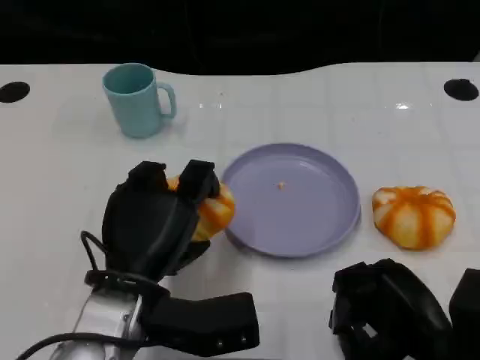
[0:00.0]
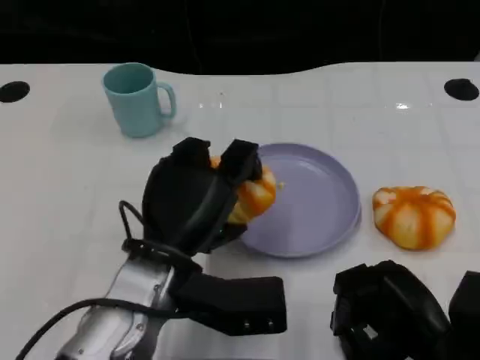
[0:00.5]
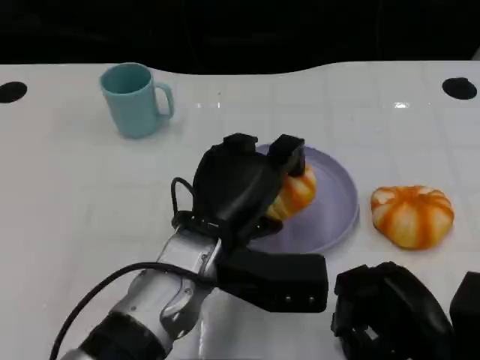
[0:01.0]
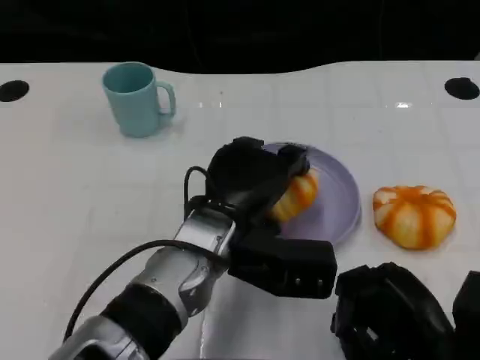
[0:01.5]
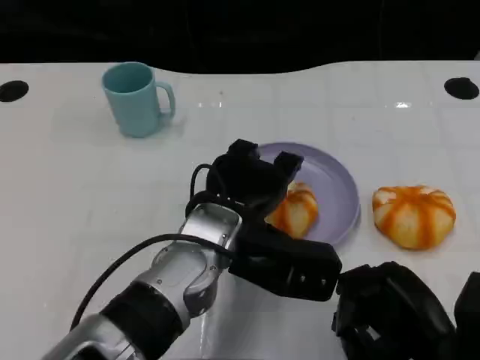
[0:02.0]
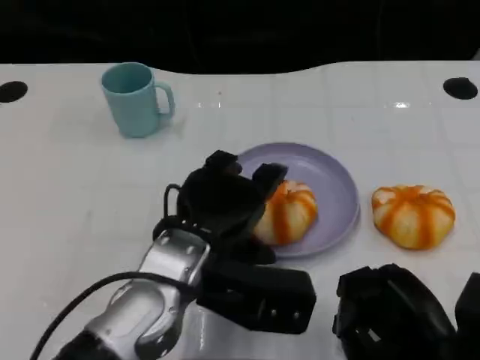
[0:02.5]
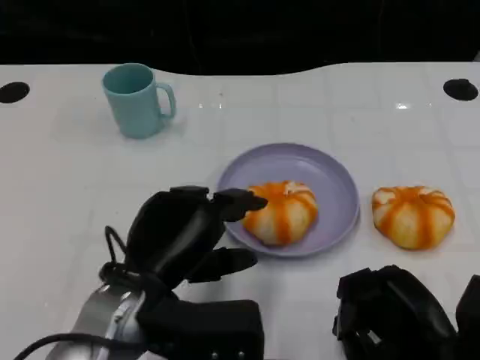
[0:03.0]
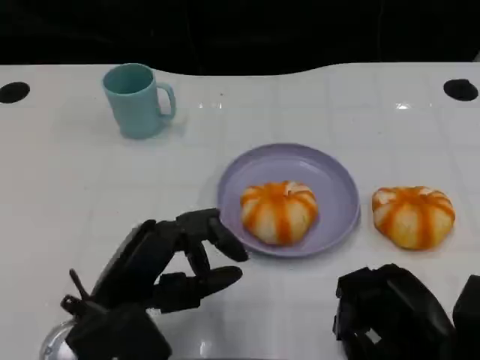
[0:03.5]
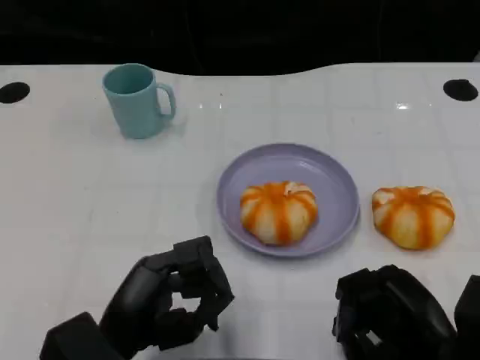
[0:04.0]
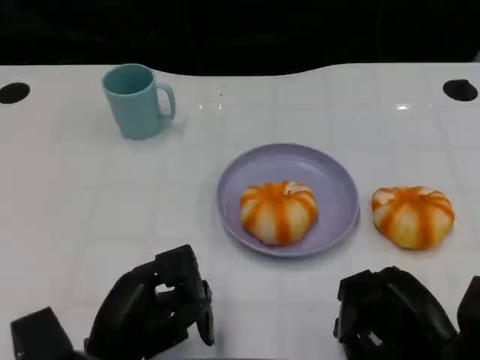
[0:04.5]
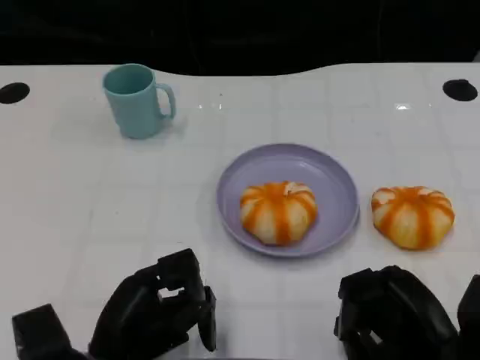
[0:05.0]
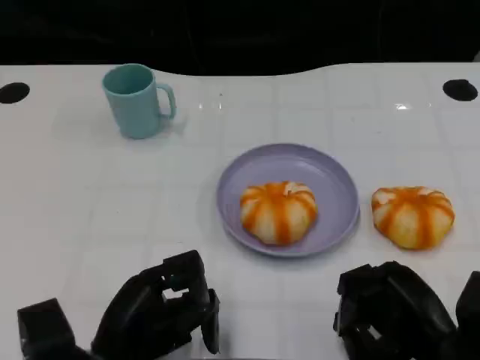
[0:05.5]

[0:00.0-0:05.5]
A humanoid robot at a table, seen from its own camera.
Task of the whole recording: Grasp the bread from the table and place it into the plate.
0.0 to 2.0 s: The left hand goes some 10 cm to the right and forward.
2.0 to 3.5 s: The left hand heads to the left and backward, covering approximately 15 cm.
3.5 to 5.5 s: The left hand moves downward, roughly 5 cm.

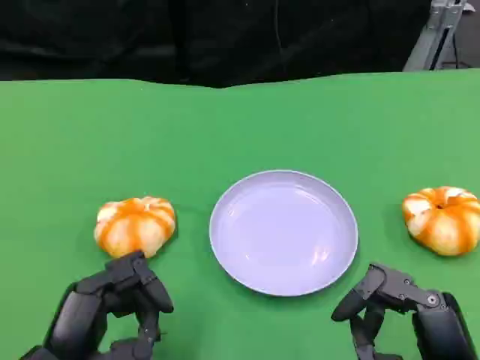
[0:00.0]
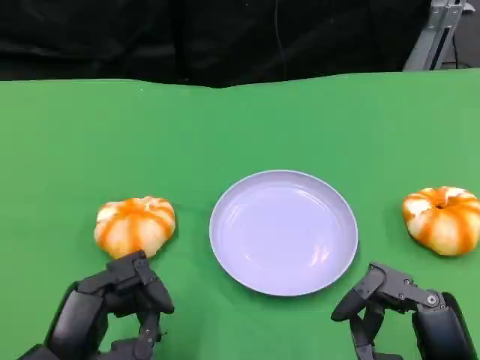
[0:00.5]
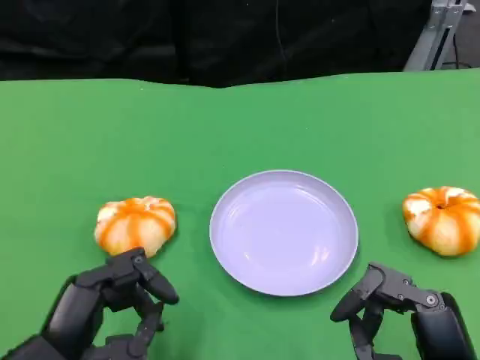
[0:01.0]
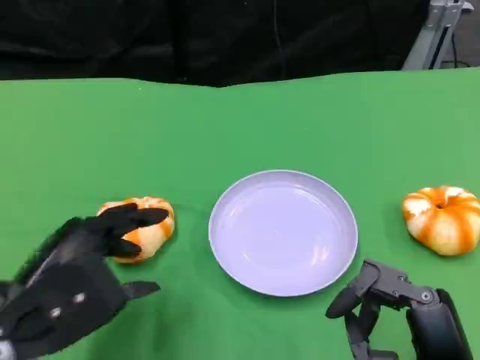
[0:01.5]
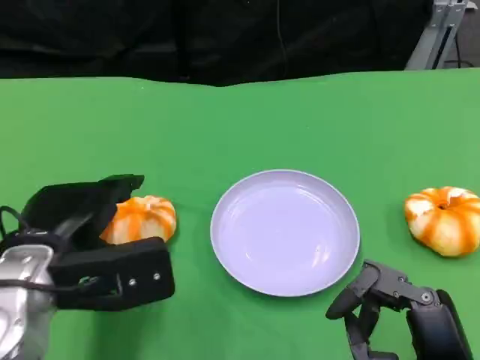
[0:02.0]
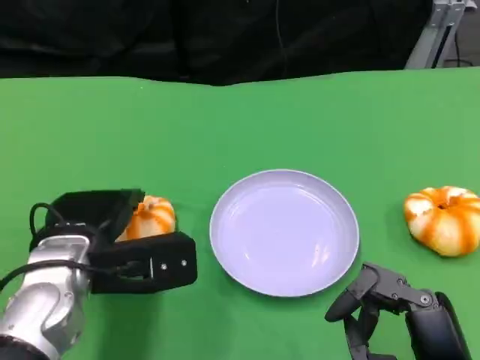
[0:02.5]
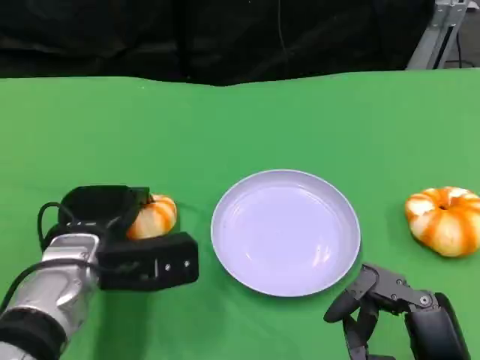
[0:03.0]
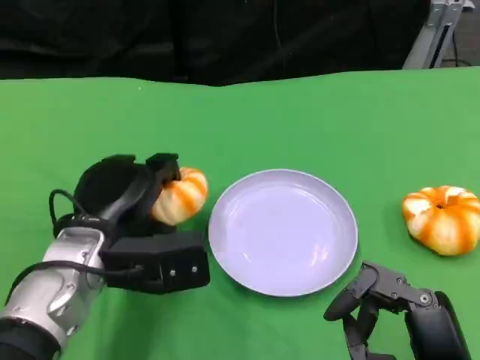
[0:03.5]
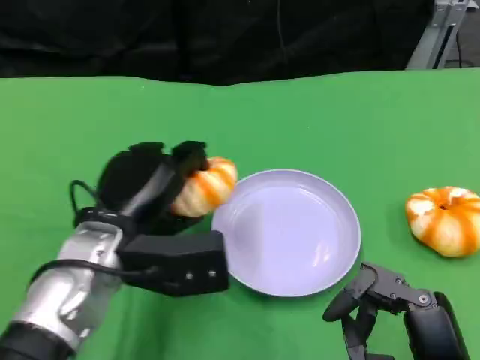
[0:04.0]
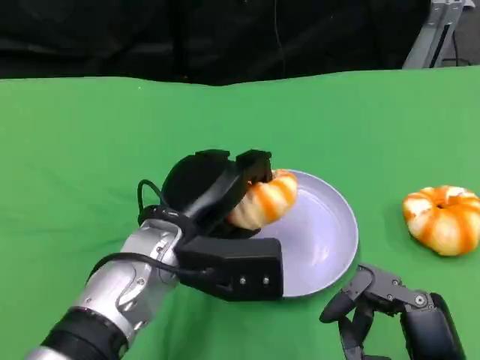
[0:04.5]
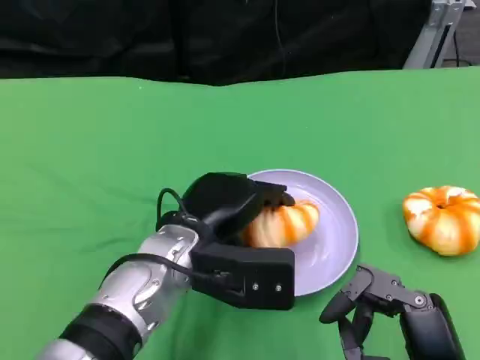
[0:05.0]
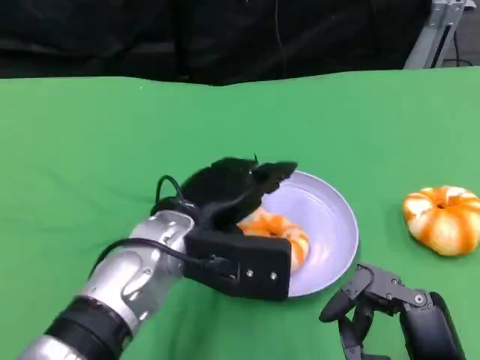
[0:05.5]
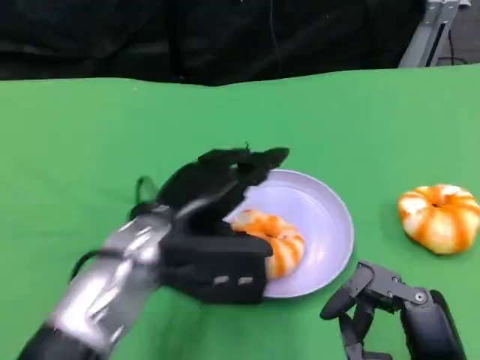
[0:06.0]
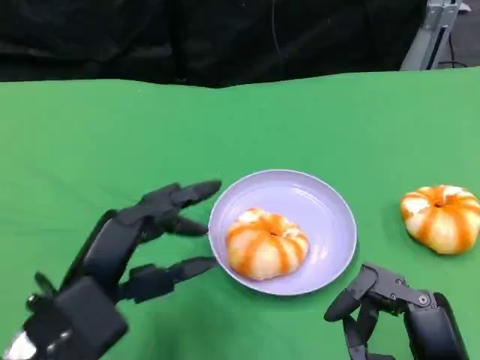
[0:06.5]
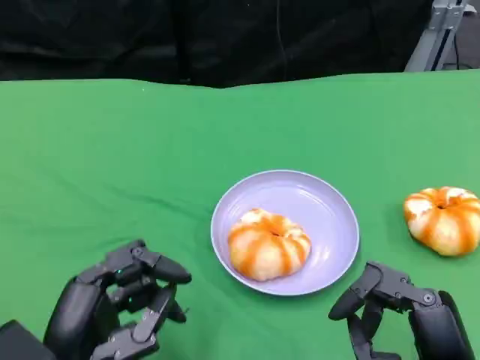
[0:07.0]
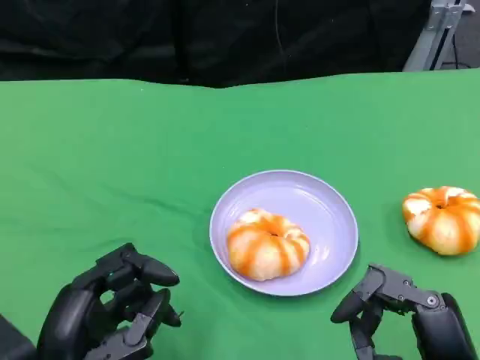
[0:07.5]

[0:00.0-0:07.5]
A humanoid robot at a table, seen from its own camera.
Task of the whole recording: Grasp the bread from the table and place it into the plate.
0.0 to 2.0 s: The left hand is displaced forward by about 10 cm.
2.0 to 4.0 s: The left hand travels to the right by some 5 cm.
5.5 to 7.5 s: The left hand moves backward and to the left, about 20 cm.

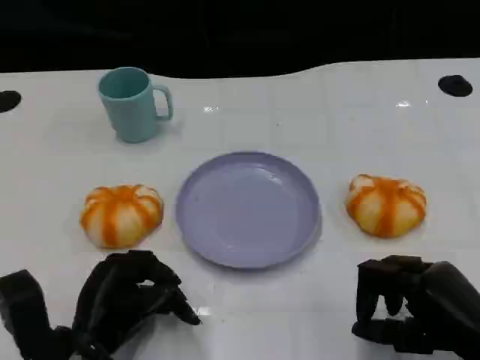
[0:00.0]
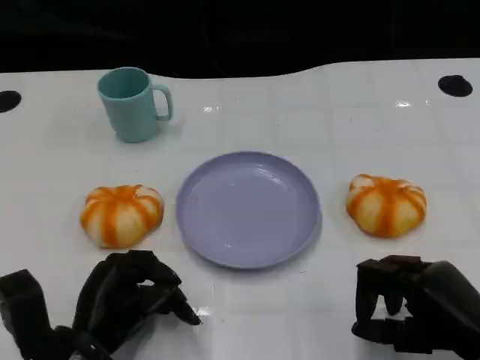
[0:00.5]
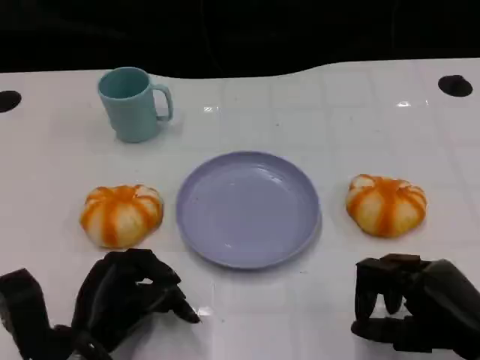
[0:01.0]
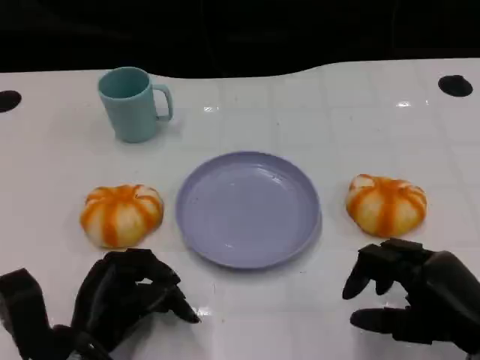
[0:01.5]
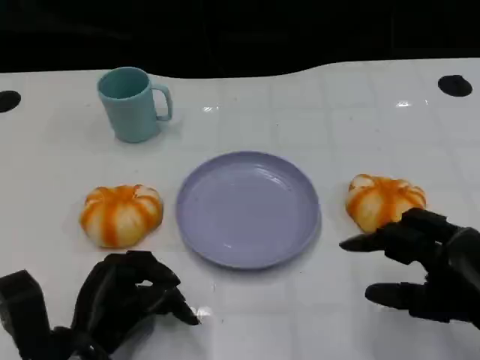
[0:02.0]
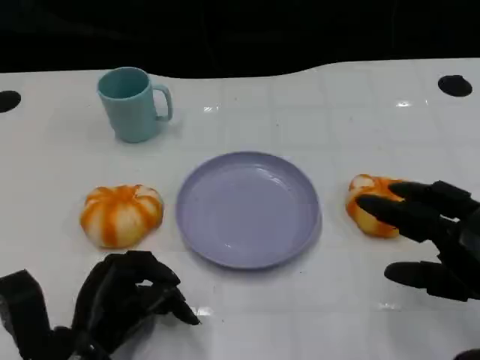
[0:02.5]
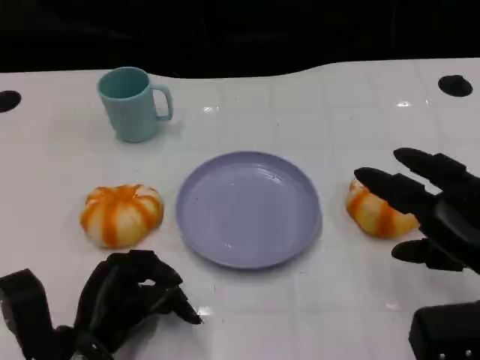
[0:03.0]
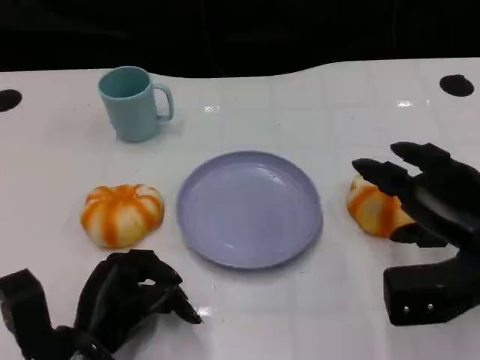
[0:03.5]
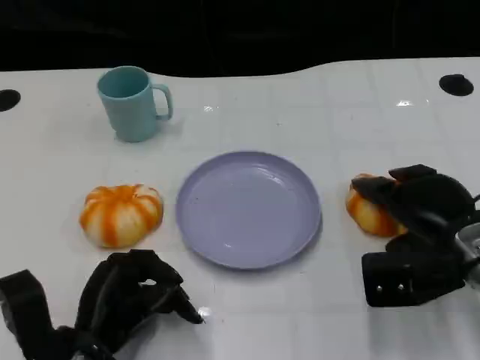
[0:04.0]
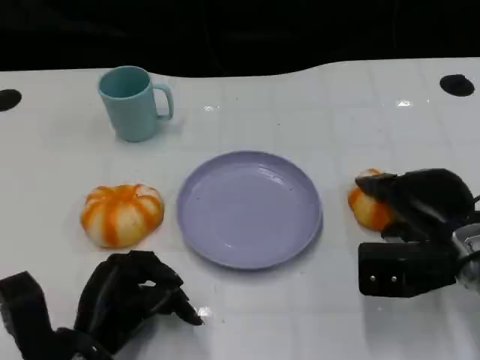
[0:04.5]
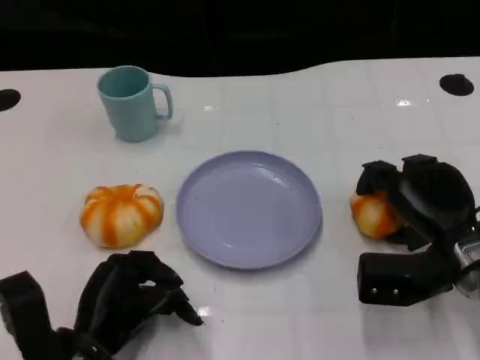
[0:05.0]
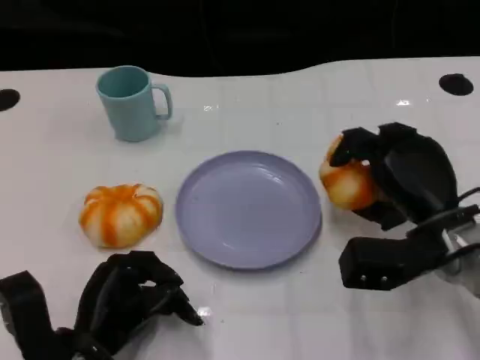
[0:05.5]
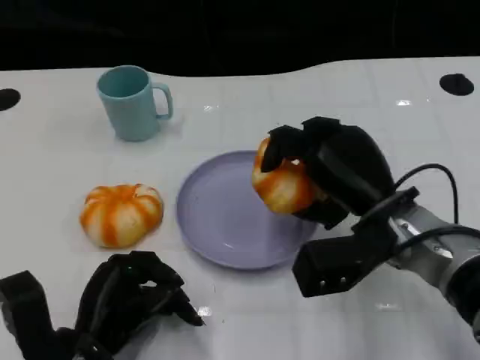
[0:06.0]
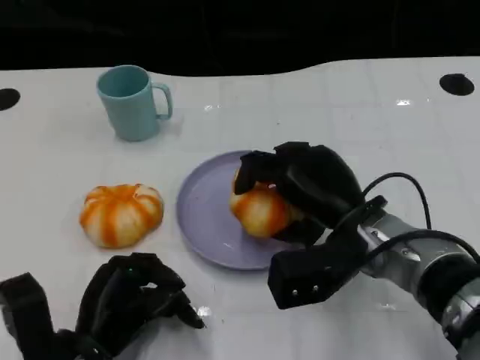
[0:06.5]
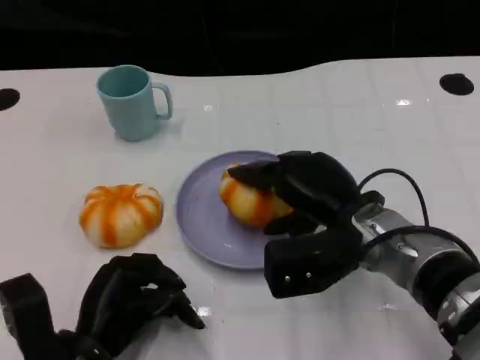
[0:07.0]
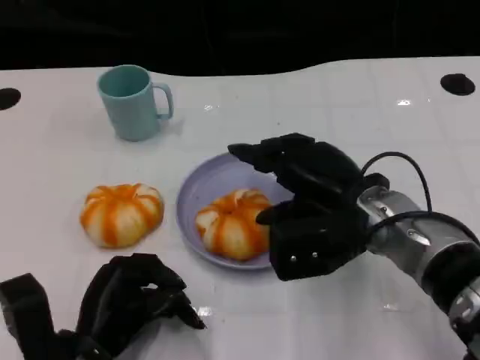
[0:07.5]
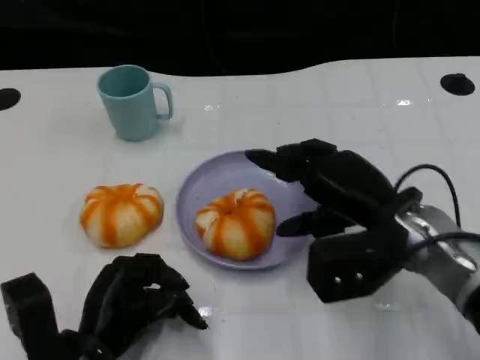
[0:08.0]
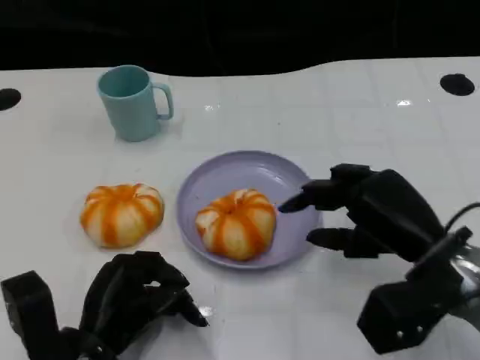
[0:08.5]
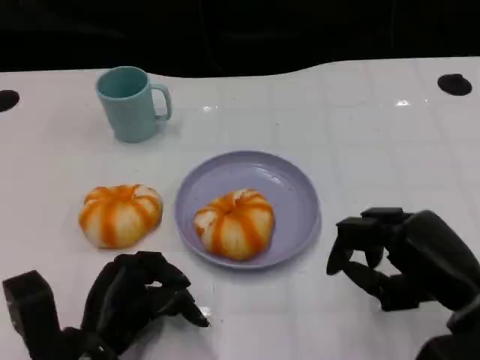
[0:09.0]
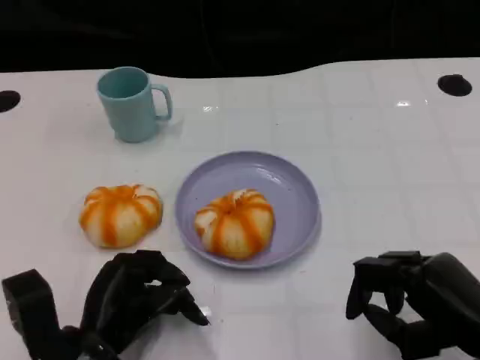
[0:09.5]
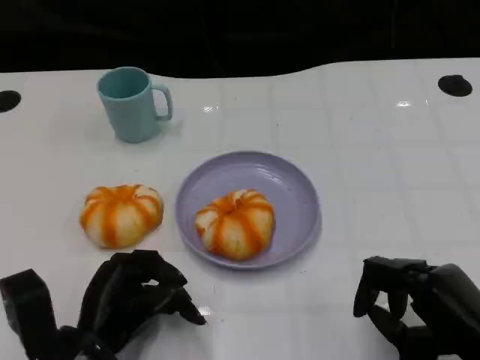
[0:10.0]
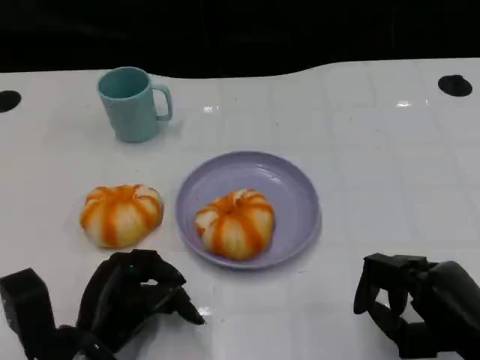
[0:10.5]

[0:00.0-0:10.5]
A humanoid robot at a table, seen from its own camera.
Task of the whole recording: Grasp the bread from the table and place it into the plate.
0.0 to 2.0 s: The hands make only small movements.
2.0 to 4.0 s: The right hand heads forward, covering roughly 10 cm.
4.0 to 6.5 s: The right hand shifts approximately 10 cm to the left.
6.5 to 8.5 s: The right hand moves to the right, roughly 10 cm.
8.5 to 10.5 s: The right hand moves backward, about 10 cm.

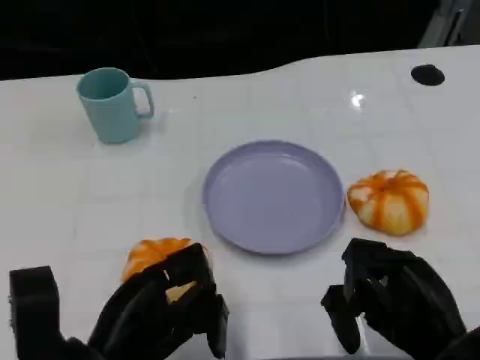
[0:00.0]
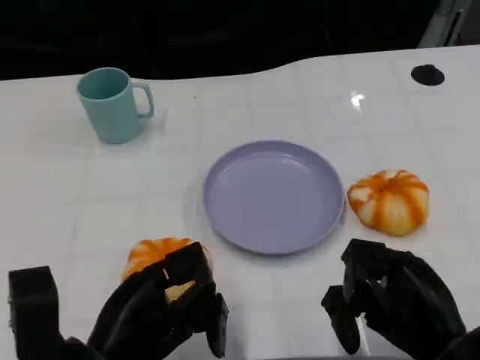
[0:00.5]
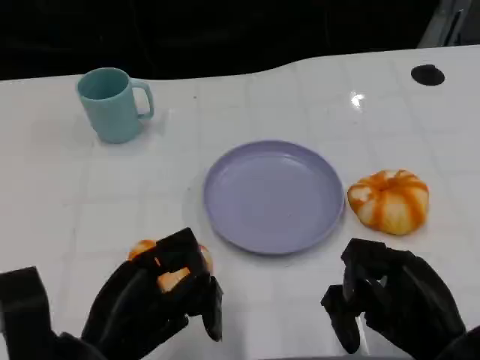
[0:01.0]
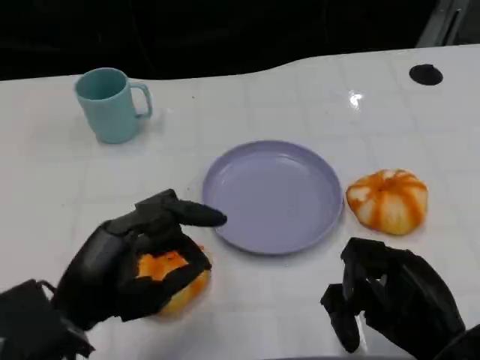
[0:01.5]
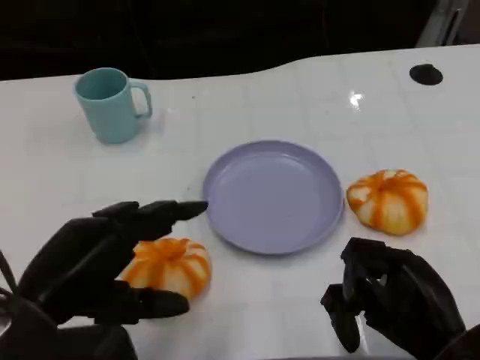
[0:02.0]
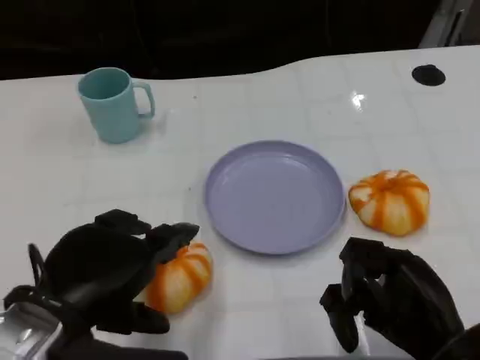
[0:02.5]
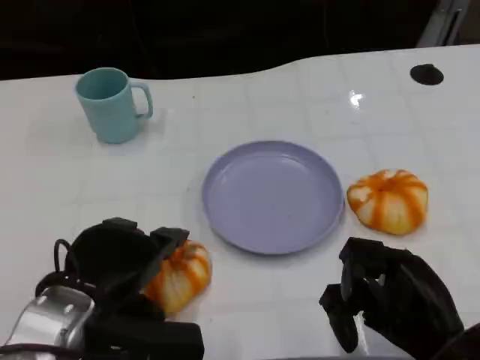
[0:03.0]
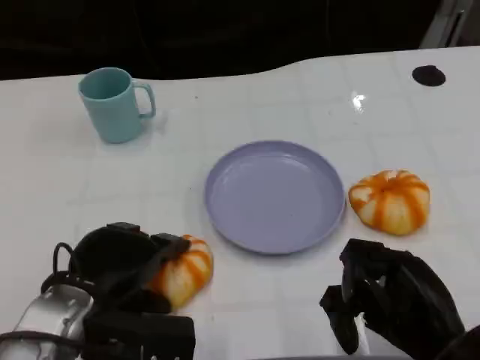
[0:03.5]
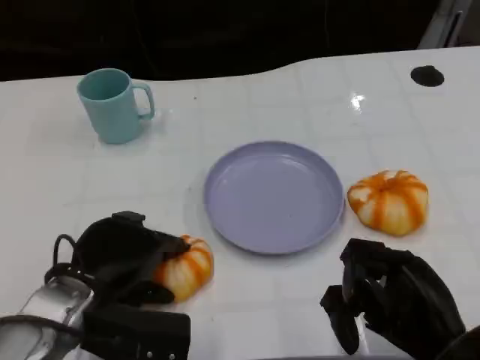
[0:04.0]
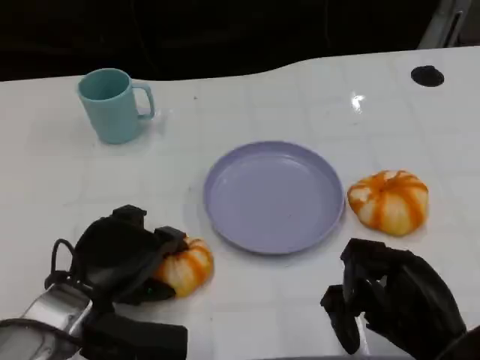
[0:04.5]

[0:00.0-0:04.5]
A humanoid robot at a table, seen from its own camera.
Task of the whole recording: Grasp the bread from the table and place it into the plate.
0.0 to 2.0 s: The left hand travels upward by roughly 10 cm.
2.0 to 4.5 s: The left hand moves downward and forward, roughly 10 cm.
